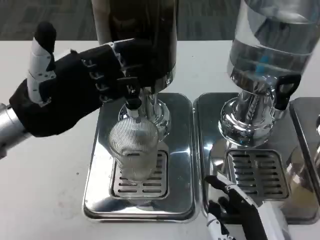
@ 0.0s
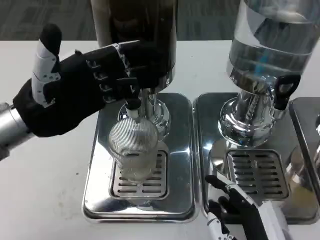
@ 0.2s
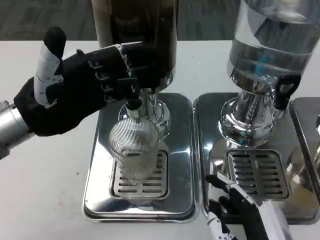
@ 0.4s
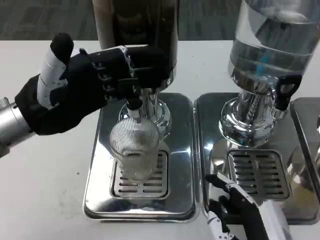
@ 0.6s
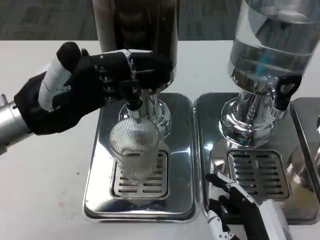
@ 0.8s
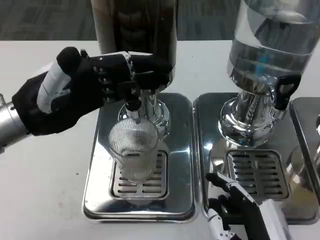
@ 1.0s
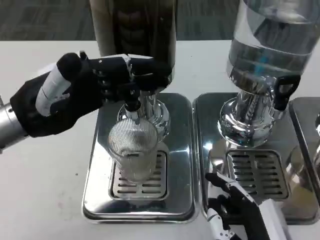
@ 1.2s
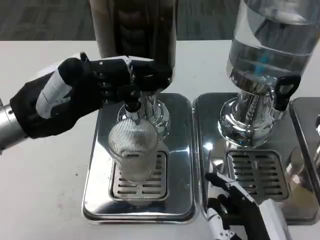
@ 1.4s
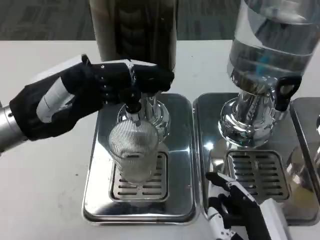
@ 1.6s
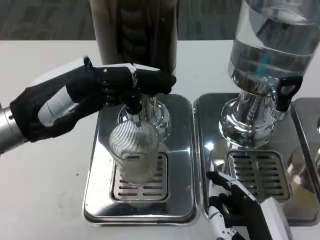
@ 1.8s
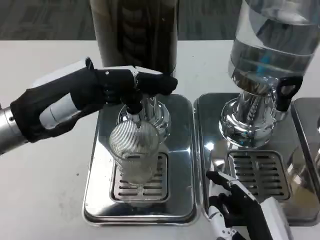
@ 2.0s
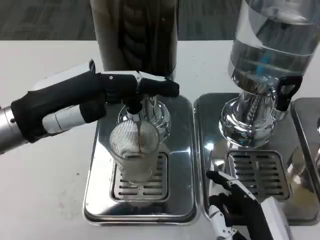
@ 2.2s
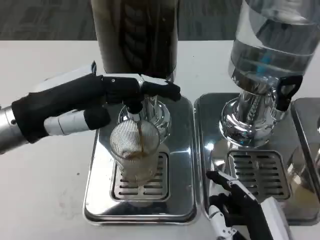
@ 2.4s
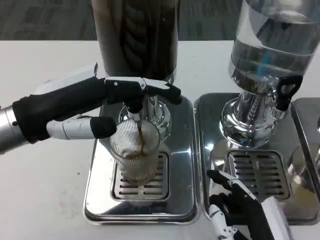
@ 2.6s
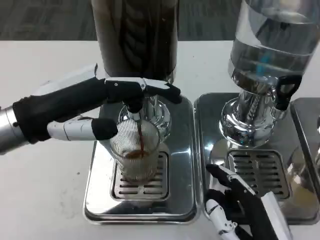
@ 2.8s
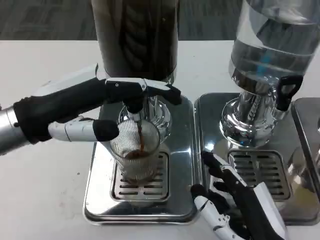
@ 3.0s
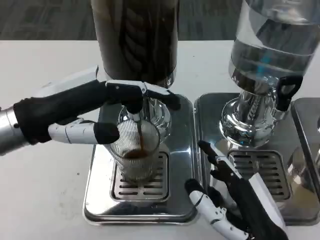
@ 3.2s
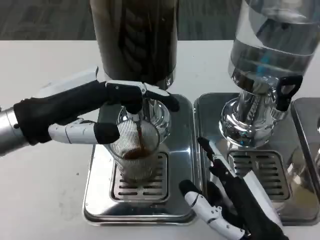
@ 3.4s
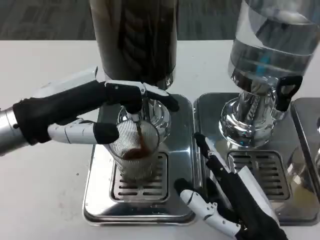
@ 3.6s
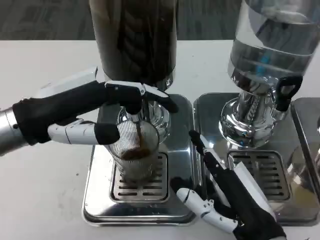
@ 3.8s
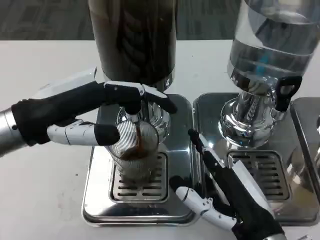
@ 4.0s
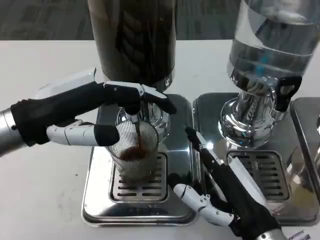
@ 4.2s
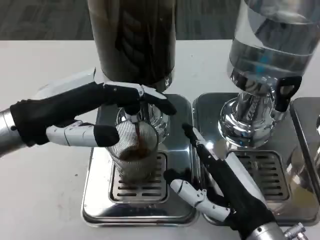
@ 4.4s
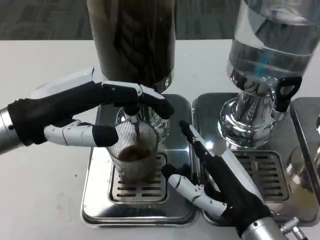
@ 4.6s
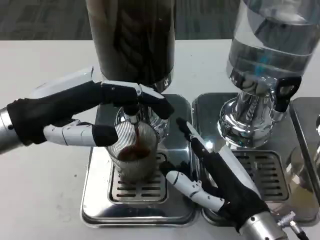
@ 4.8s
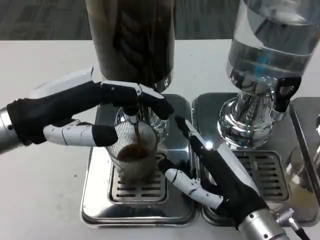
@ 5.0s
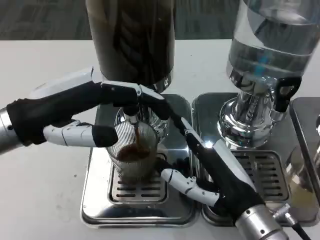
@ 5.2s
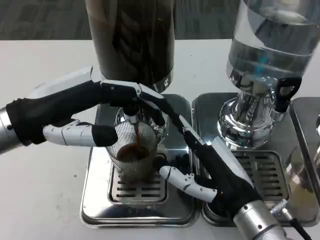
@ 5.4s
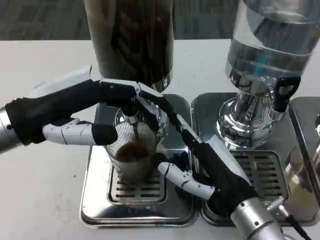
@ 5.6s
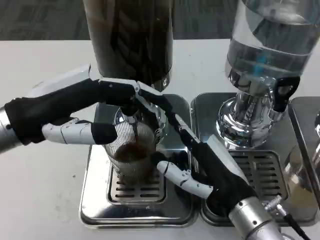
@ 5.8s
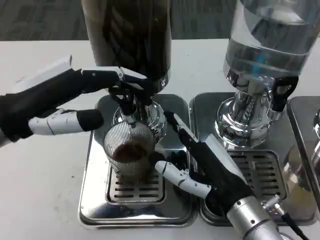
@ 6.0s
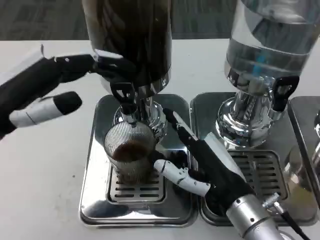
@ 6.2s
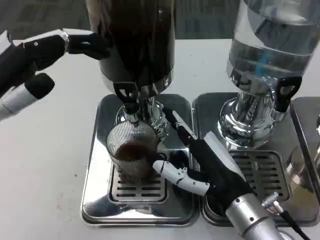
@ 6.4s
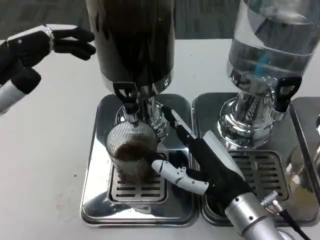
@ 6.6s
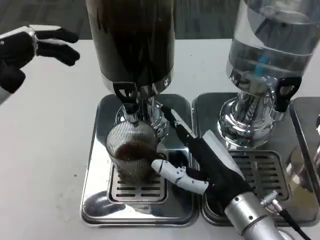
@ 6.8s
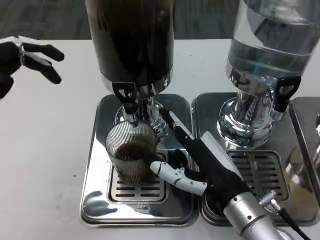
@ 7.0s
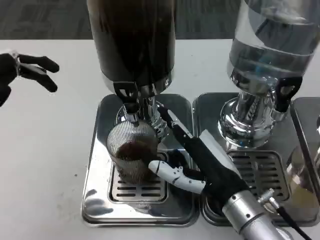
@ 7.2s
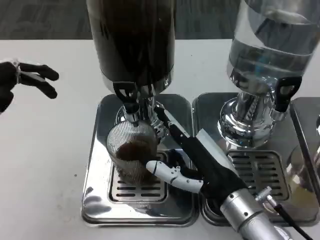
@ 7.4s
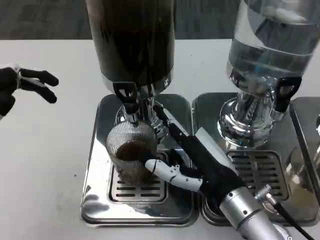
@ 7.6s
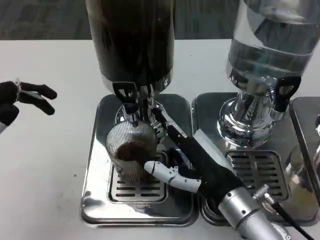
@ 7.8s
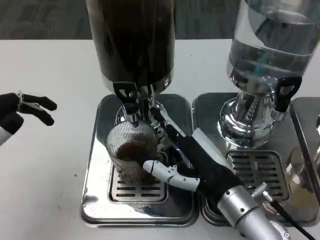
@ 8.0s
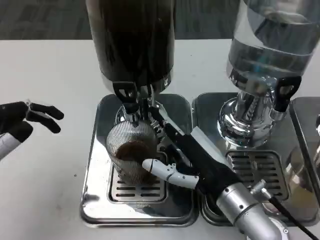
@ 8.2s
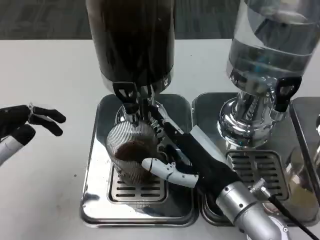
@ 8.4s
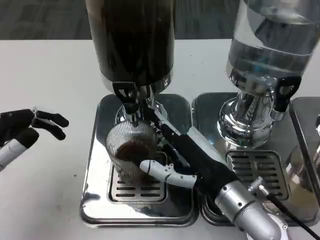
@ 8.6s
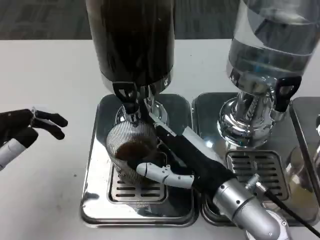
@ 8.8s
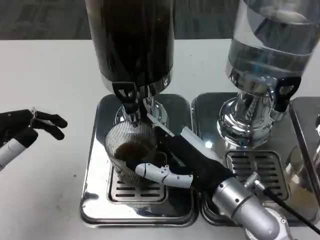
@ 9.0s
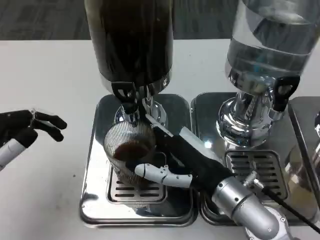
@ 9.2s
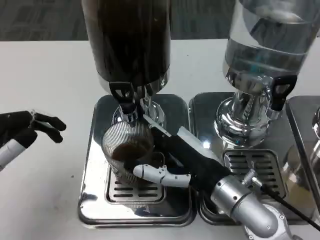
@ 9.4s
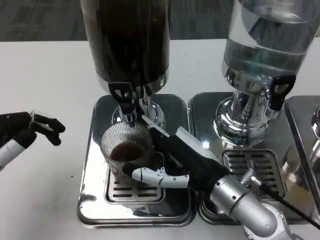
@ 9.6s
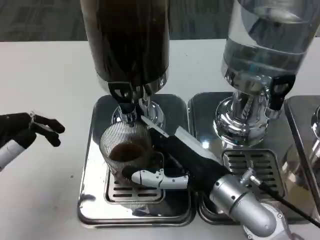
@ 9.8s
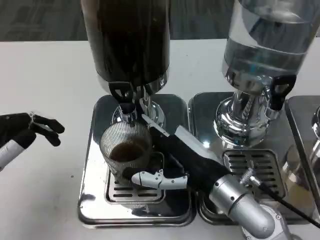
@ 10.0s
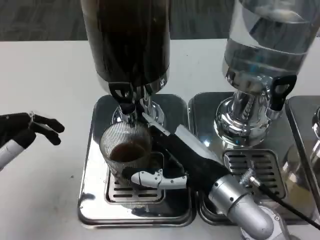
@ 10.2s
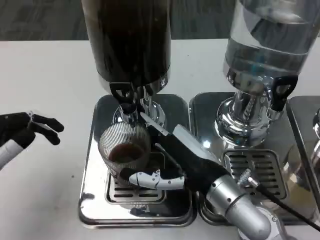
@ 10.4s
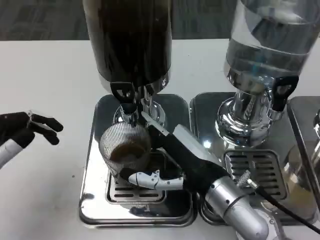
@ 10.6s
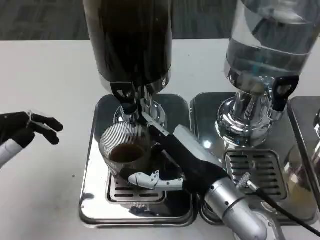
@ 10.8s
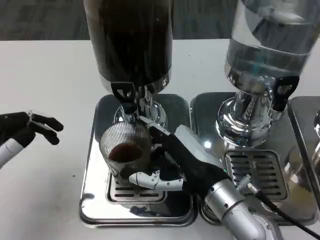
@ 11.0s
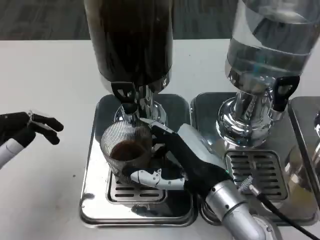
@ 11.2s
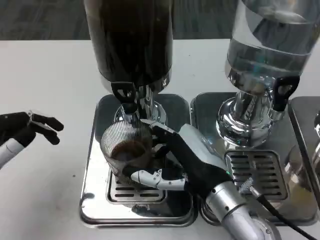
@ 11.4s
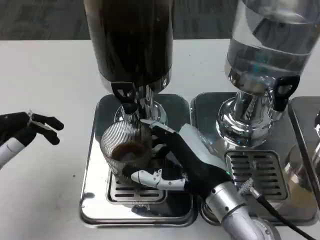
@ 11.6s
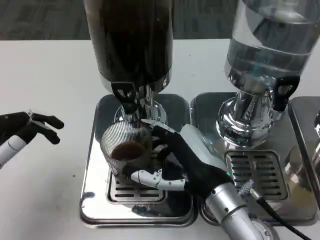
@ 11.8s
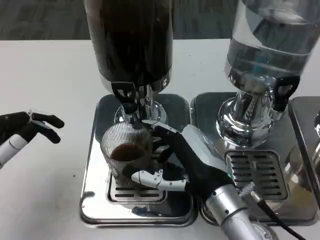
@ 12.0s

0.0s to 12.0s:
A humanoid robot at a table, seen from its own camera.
Task of the whole recording: Grasp the cup under the faucet to collect the drink, then remove the cup.
3.0s to 4.4s: The right hand goes roughly 5 cm forward.
6.0s to 7.6s: The left hand shifts roughly 10 cm backward and to the left.
7.6s to 9.0s: The hands make only small movements.
10.4s to 12.0s: The hands make only small movements.

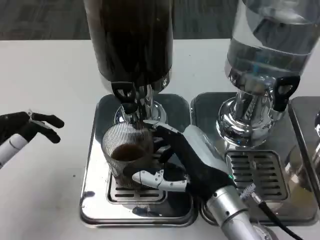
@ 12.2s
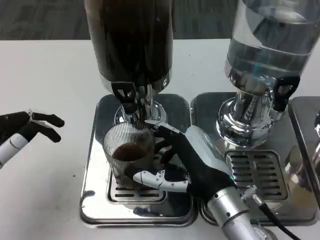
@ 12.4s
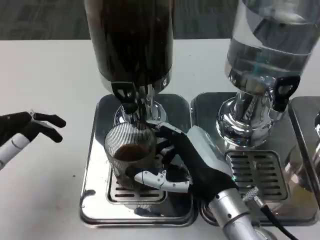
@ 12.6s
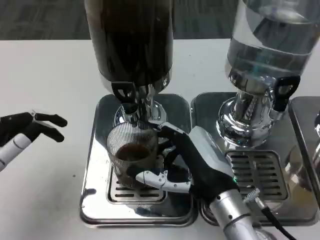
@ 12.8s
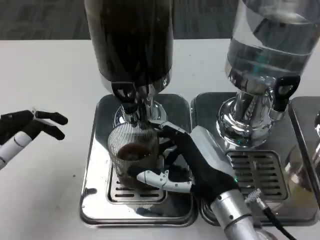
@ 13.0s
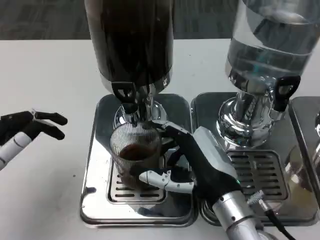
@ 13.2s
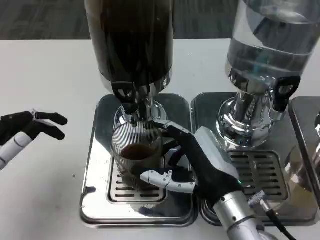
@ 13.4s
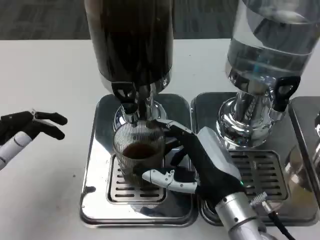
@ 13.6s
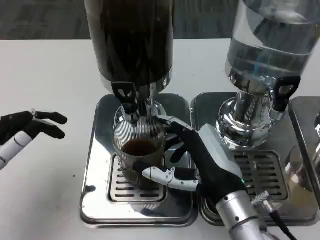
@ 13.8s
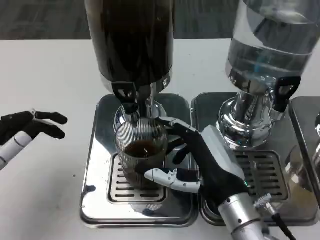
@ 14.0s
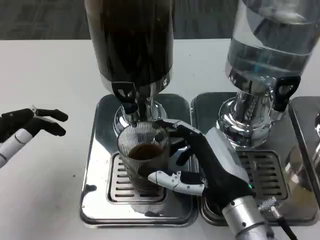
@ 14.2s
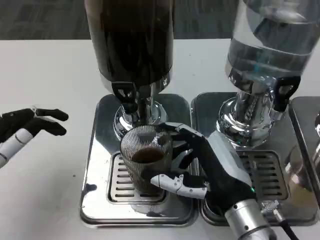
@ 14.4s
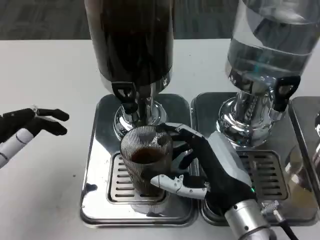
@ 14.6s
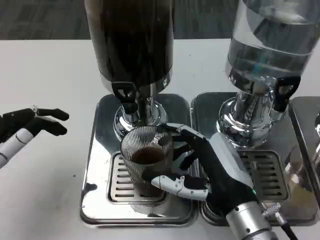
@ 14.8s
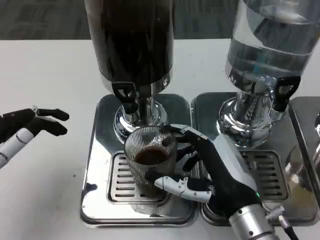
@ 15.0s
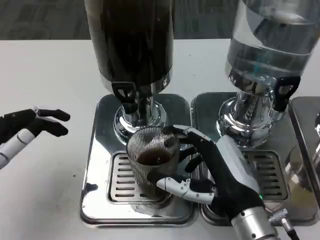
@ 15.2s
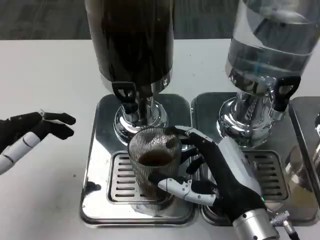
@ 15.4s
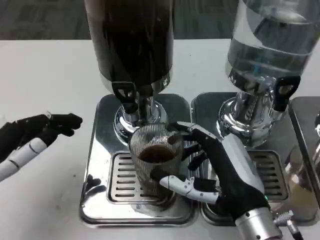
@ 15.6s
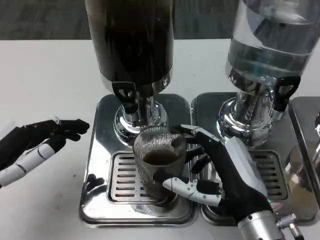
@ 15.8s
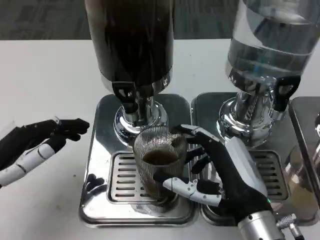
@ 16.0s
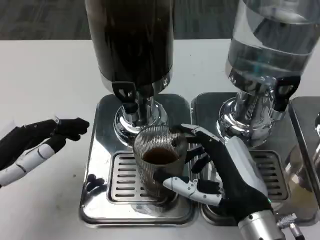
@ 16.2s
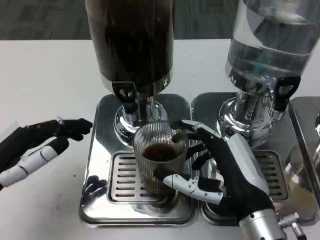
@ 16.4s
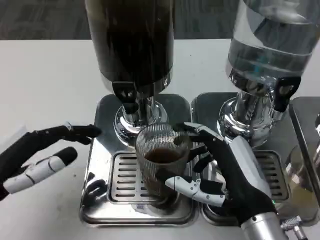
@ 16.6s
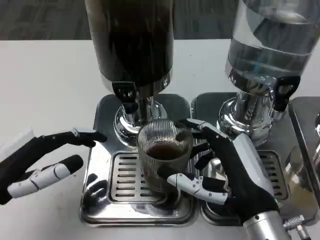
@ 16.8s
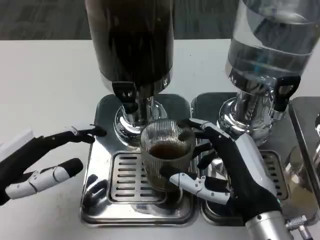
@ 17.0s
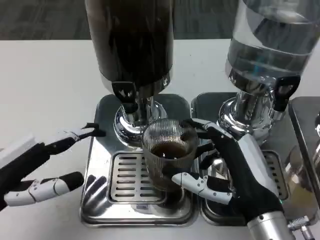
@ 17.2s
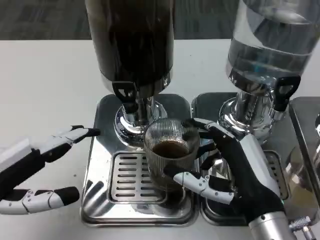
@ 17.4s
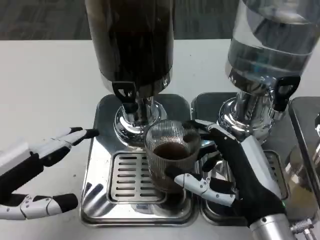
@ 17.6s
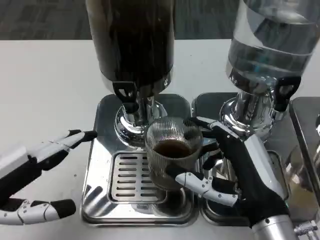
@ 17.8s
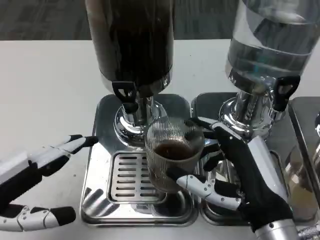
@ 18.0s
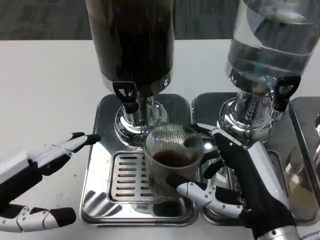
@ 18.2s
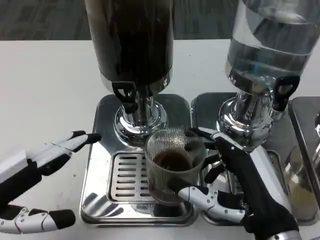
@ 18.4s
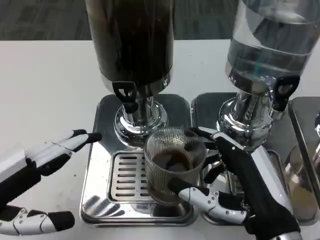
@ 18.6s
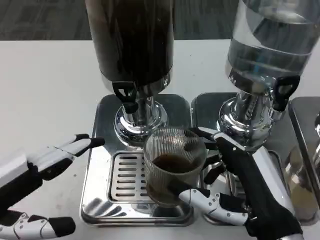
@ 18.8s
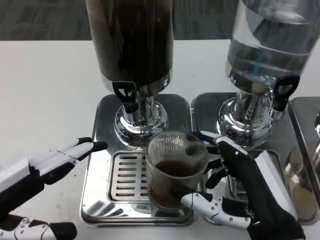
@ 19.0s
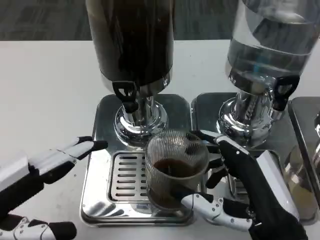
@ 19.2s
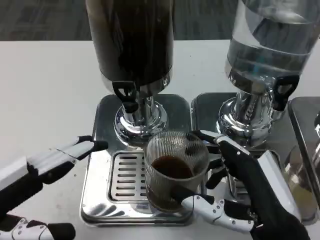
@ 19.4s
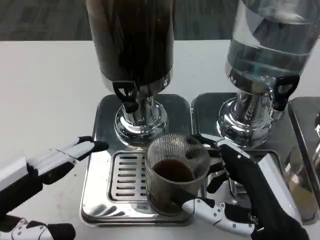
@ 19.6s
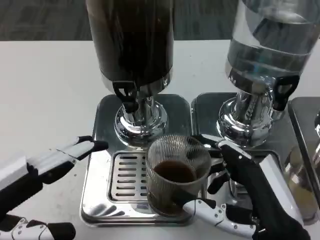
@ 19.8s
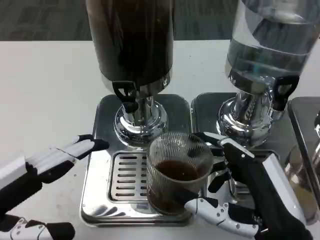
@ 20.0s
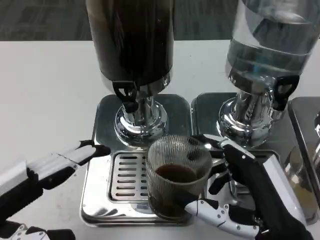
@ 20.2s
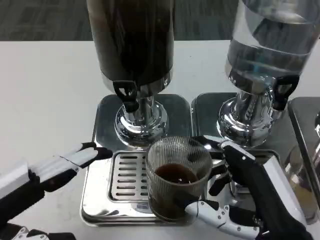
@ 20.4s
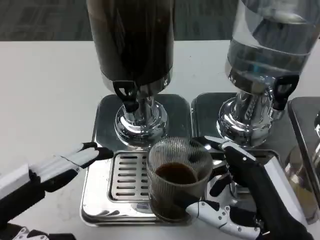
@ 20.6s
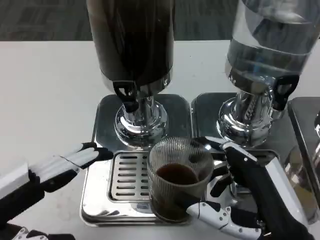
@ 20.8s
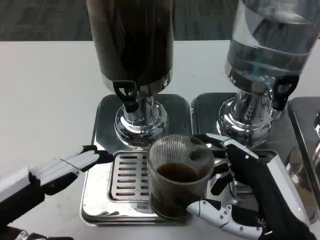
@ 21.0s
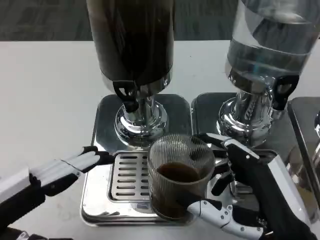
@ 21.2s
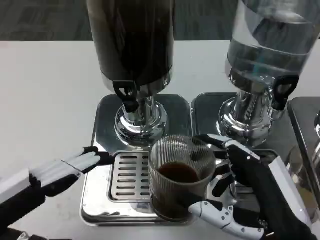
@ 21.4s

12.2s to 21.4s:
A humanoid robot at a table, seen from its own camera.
Task of the whole recording: Grasp the cup under the faucet to collect the drink, then remove the cup.
12.2s to 15.2s: The hands make only small movements.
18.4s to 19.8s: The hands make only small movements.
19.8s to 21.4s: Both hands stay about where they are.

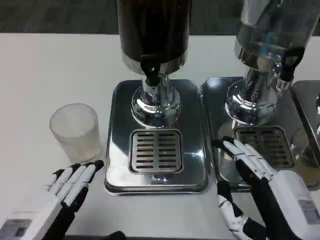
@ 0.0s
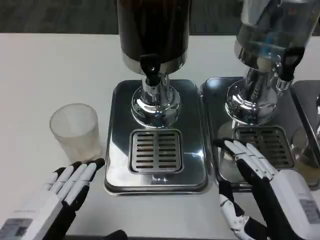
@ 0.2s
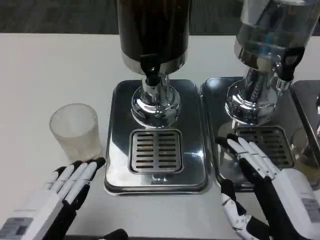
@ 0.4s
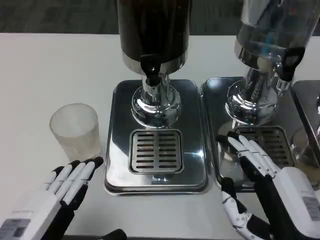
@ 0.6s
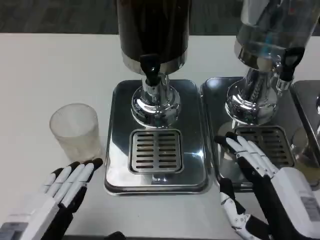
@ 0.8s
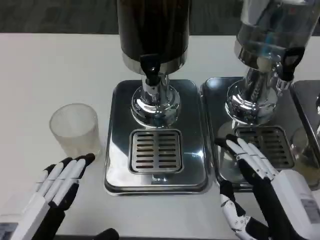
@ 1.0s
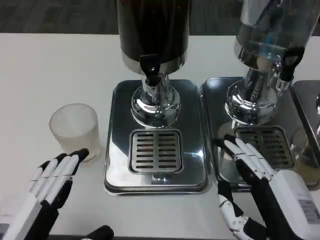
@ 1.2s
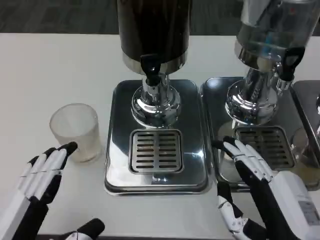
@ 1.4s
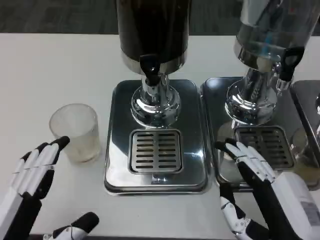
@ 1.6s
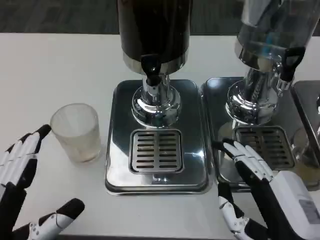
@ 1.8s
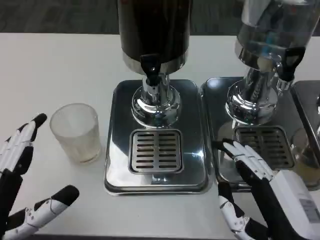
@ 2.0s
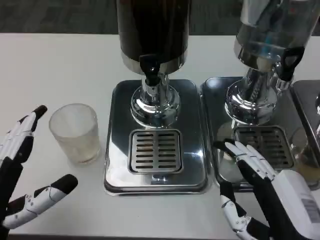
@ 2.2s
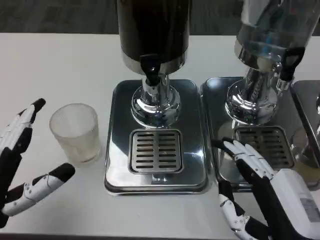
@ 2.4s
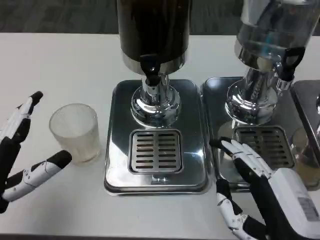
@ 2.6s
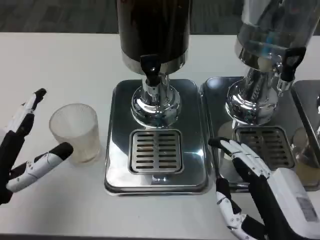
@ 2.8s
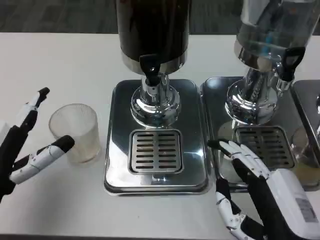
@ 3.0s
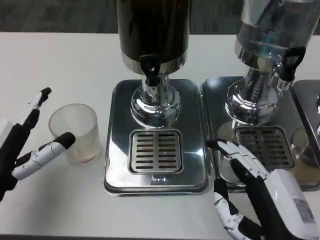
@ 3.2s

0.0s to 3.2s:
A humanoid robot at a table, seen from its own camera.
Task of the whole recording: Grasp the cup under the faucet to collect the drink, then remove the cup.
0.0s to 1.6s: The hands move only a little.
1.6s to 3.2s: The left hand goes some 10 cm forward.
